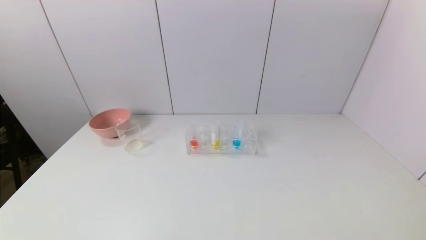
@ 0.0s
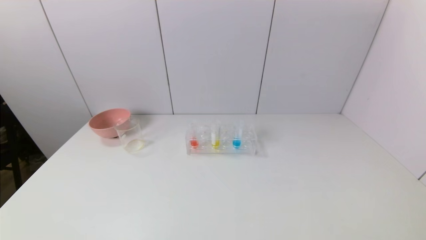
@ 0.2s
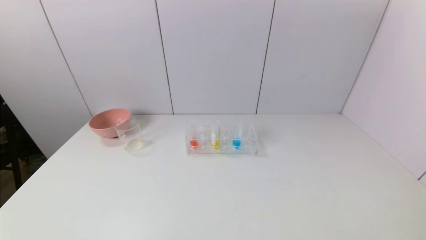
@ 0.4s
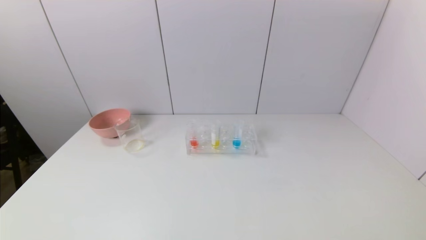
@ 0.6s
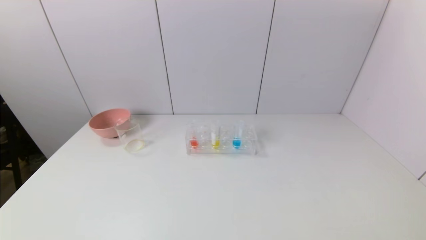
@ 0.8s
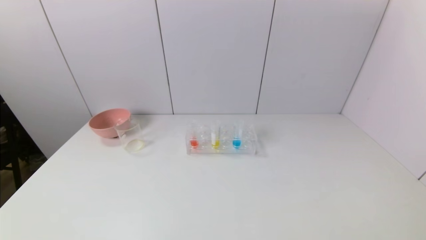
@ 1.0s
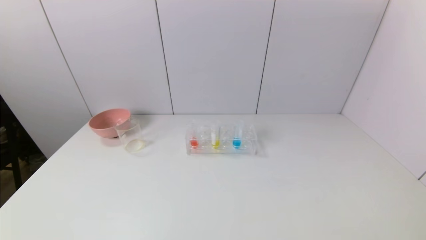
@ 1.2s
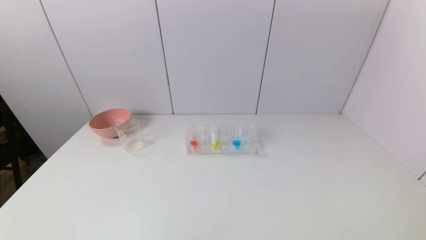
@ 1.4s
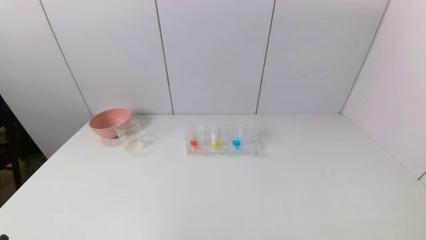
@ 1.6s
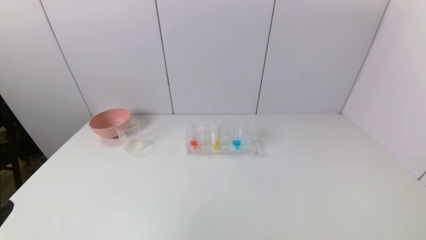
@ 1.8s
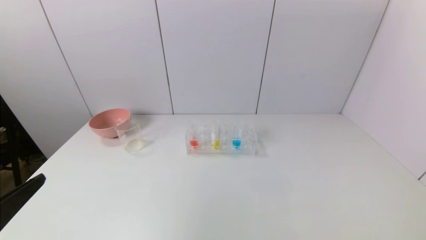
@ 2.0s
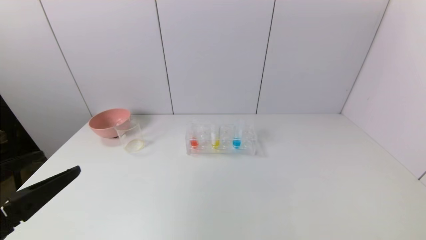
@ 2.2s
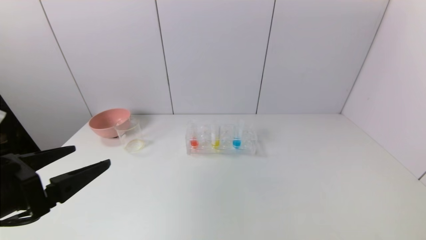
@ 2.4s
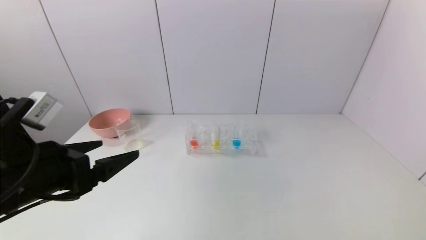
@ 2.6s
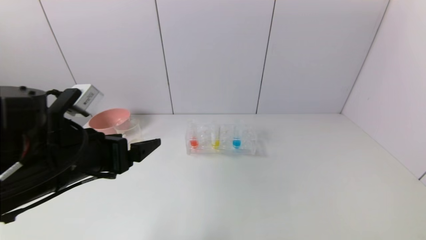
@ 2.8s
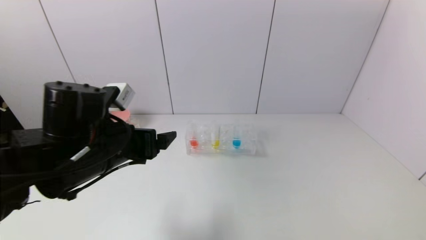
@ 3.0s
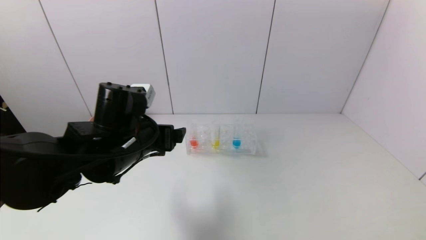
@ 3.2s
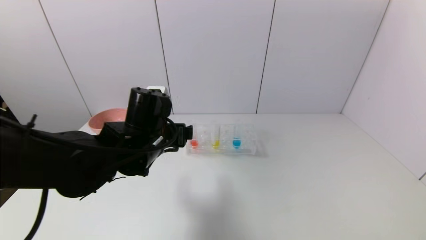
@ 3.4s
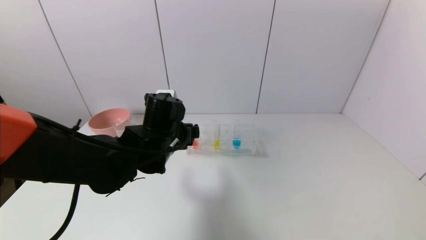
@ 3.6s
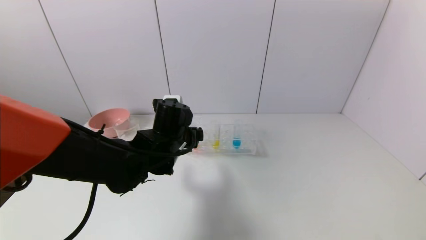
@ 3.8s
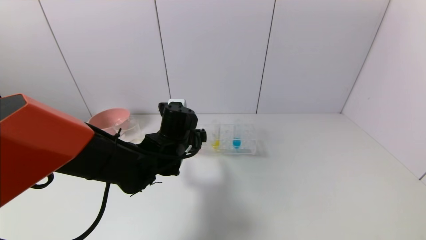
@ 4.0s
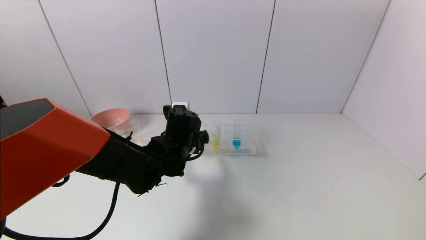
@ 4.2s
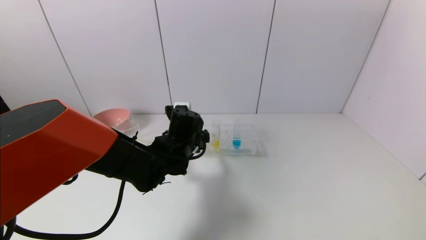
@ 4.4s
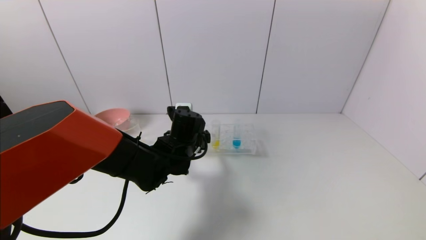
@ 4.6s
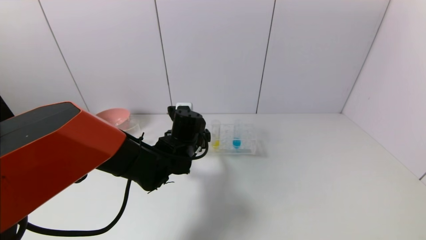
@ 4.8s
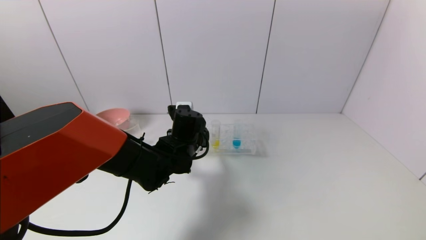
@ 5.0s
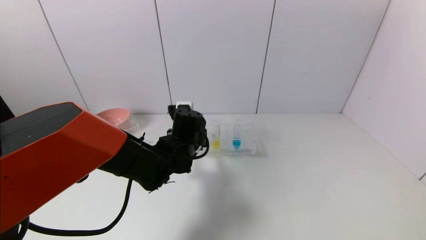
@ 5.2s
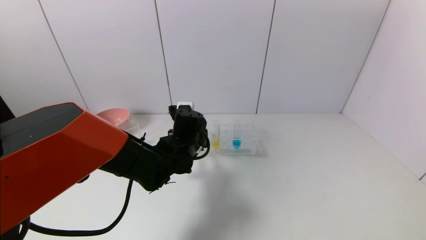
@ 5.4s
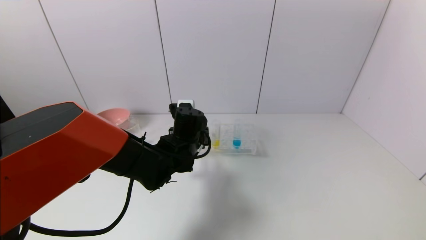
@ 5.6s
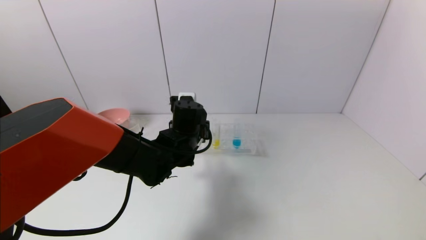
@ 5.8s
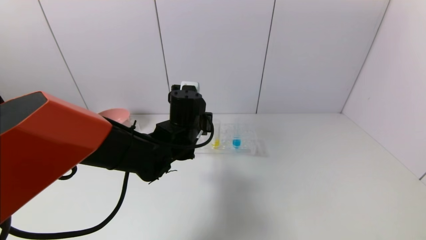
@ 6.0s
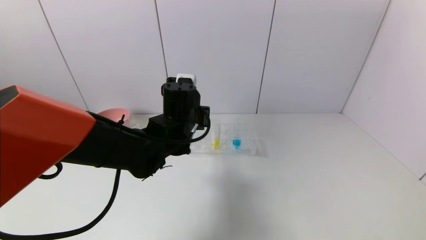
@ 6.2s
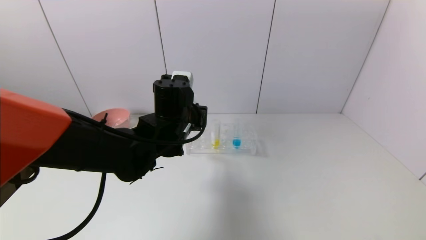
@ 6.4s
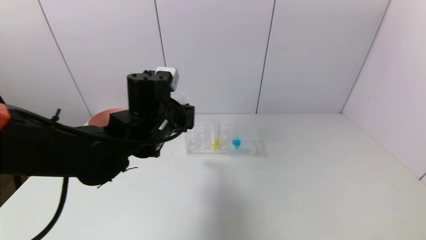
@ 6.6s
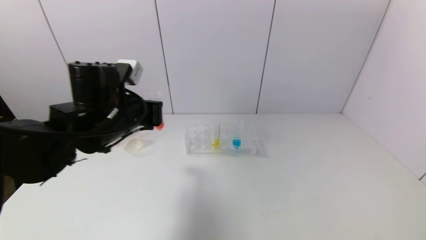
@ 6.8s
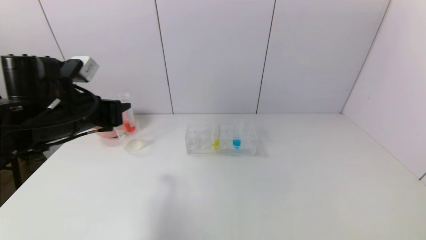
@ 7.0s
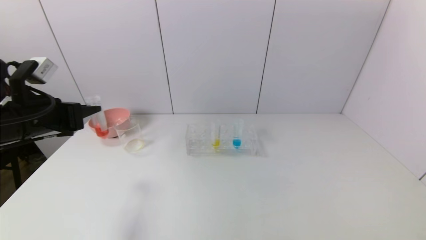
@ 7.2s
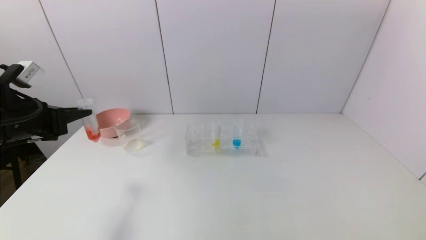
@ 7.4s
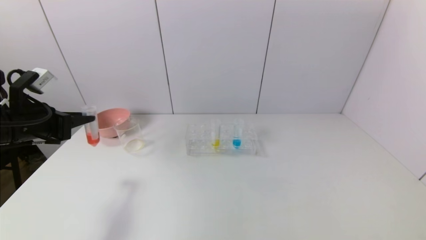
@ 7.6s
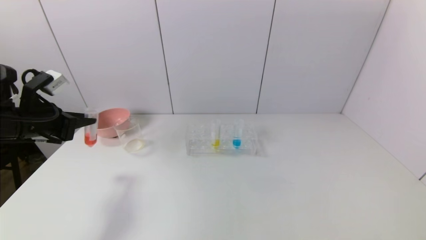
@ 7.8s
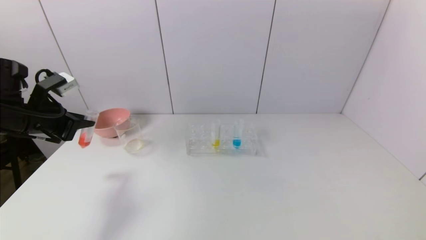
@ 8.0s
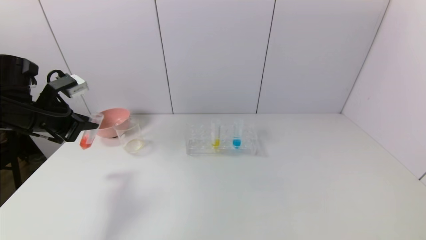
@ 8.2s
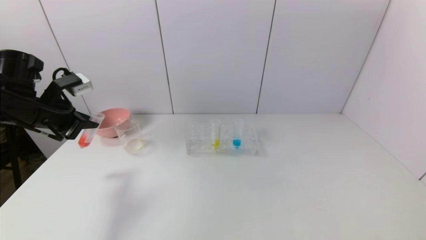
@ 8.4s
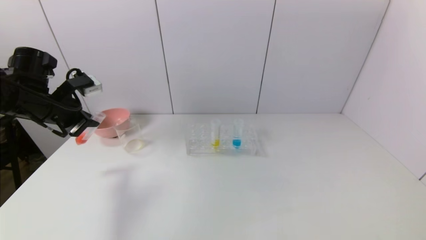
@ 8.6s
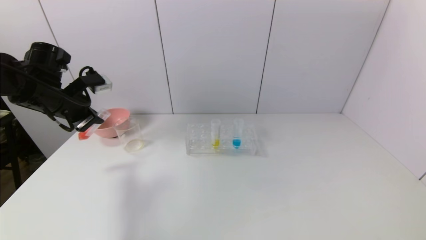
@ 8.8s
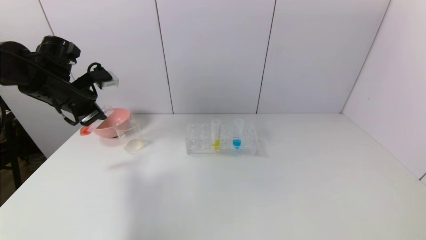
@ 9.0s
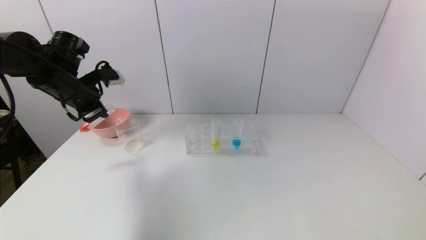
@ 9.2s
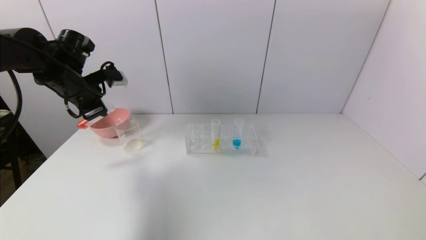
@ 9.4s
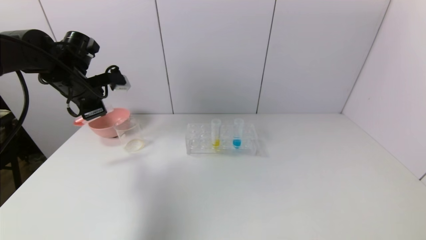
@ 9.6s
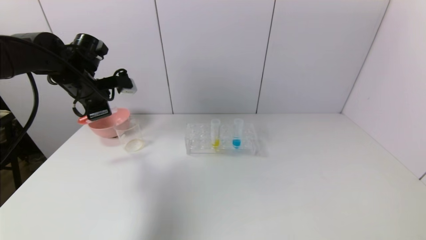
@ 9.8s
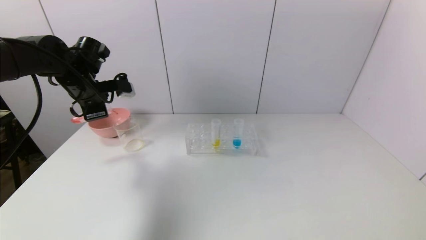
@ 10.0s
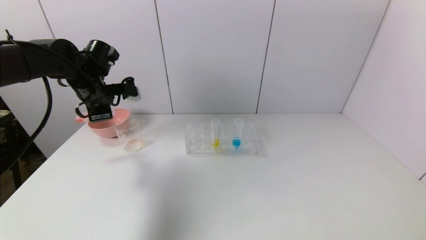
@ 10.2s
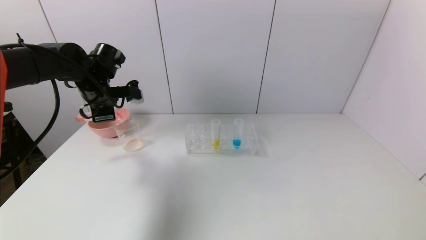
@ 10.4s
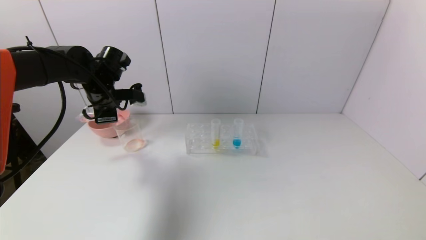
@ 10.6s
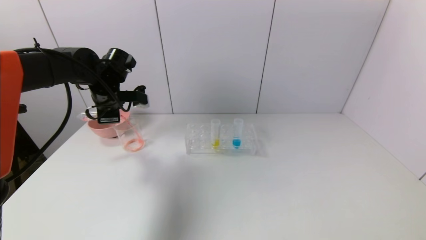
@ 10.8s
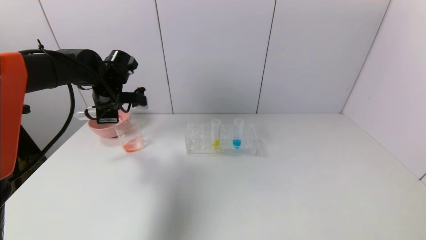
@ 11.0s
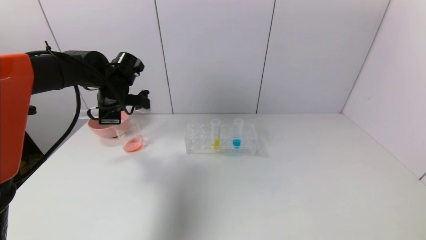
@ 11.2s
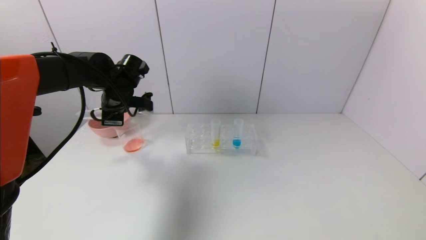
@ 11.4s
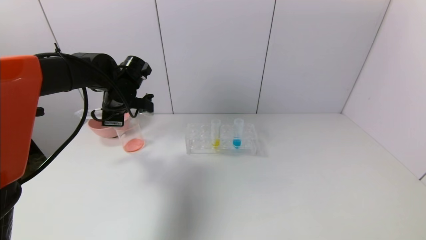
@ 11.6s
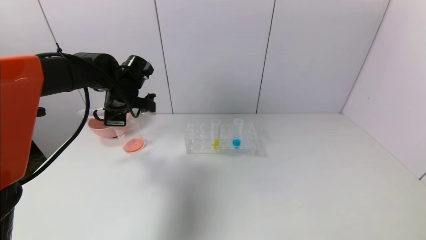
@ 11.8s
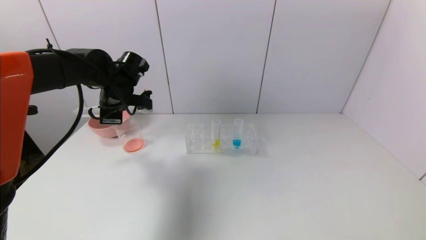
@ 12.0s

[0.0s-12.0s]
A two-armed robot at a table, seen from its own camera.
Task of the whole recording: pick up the test tube with yellow pigment and the test tube with red pigment by grippers and pour them into the beaker.
Step, 0.0s to 5.4s: Grasp the red reagent with the left gripper.
Step, 5.6s to 11.8s: Pour the red reagent into the graduated cylinder with the left gripper.
1.6s to 3.0s: The left gripper is displaced forward and to the right by roughly 25 cm.
3.0s to 4.4s: The left gripper moves forward, to the right and downward, some 15 cm.
4.4s to 6.0s: The left gripper closes its fingers.
6.0s to 7.6s: The left gripper heads to the left, covering about 30 cm.
7.6s to 9.0s: The left gripper moves forward, roughly 10 cm.
9.0s to 10.4s: The left gripper ends up about 5 cm from where it was.
10.4s to 12.0s: The grippers stay close to where they were, moving slightly.

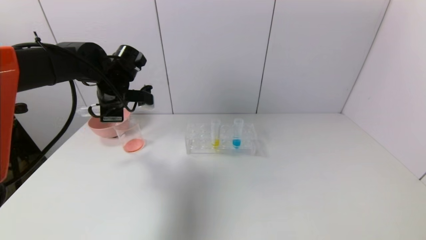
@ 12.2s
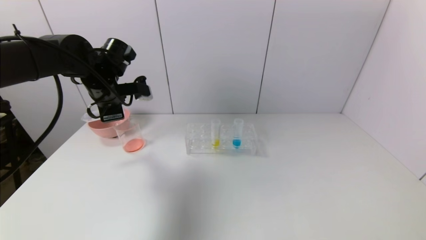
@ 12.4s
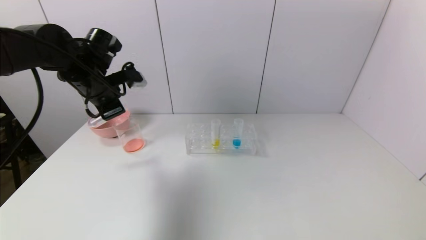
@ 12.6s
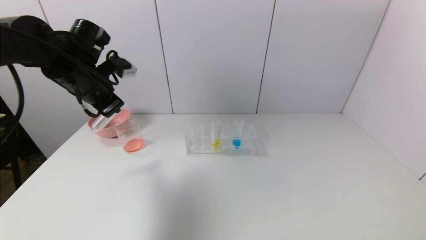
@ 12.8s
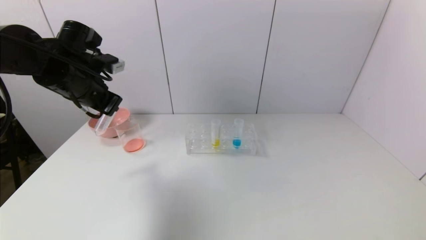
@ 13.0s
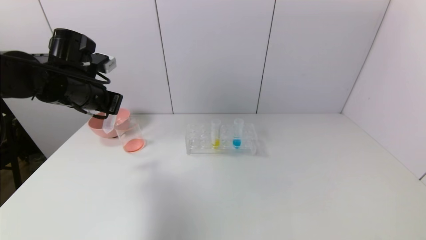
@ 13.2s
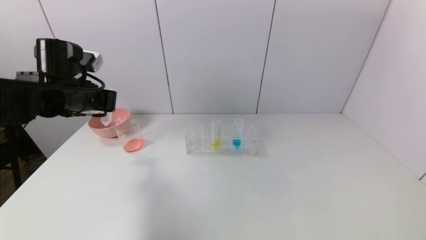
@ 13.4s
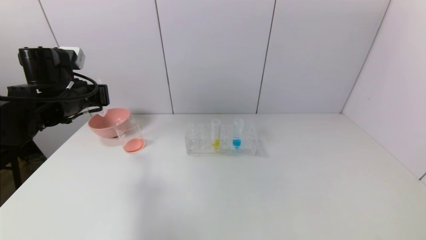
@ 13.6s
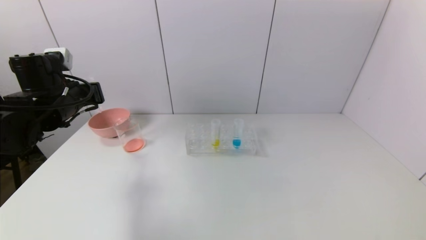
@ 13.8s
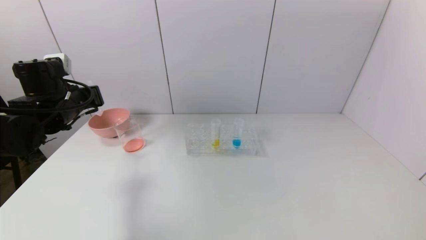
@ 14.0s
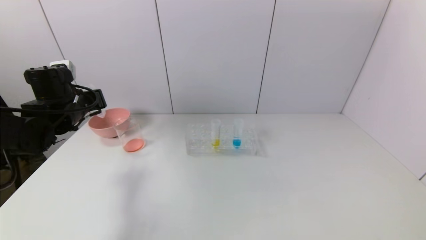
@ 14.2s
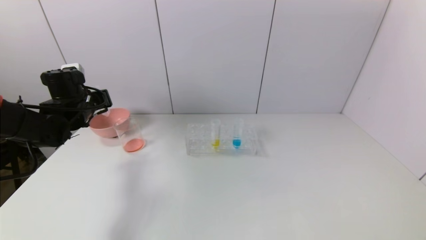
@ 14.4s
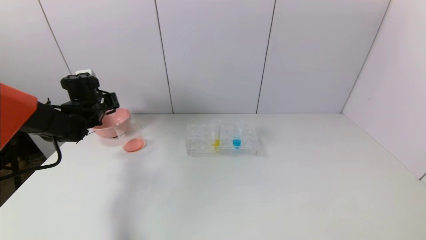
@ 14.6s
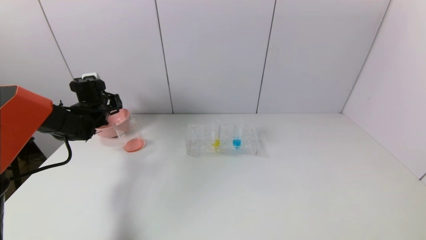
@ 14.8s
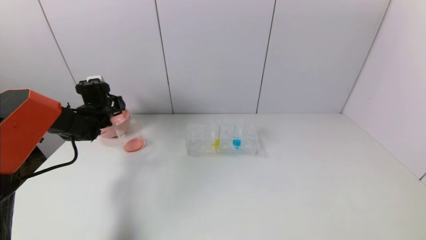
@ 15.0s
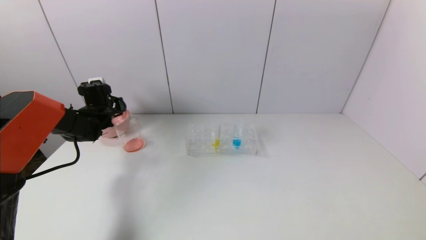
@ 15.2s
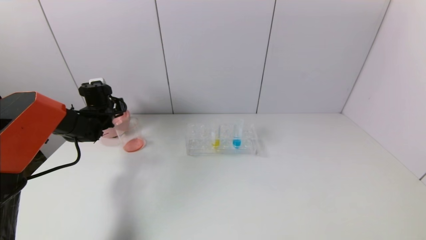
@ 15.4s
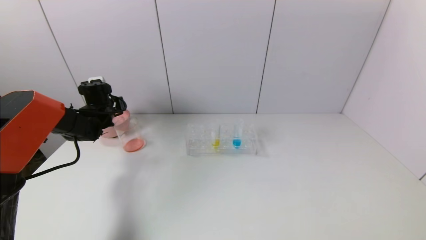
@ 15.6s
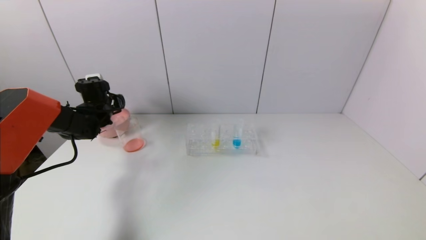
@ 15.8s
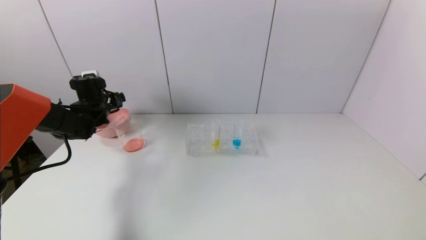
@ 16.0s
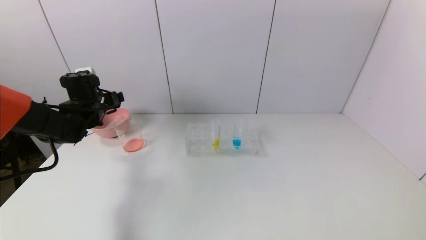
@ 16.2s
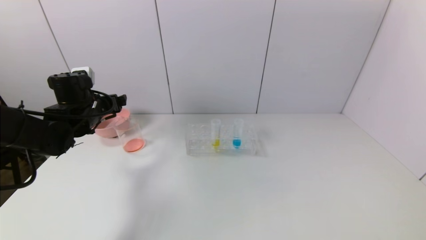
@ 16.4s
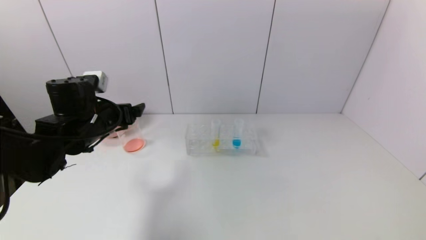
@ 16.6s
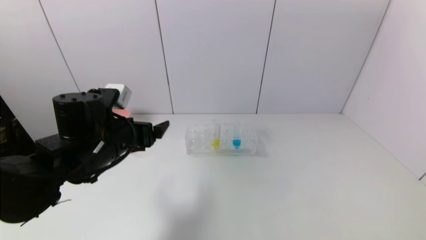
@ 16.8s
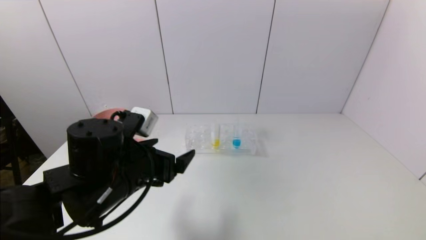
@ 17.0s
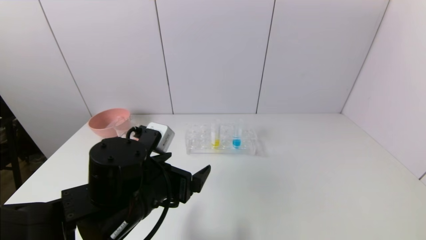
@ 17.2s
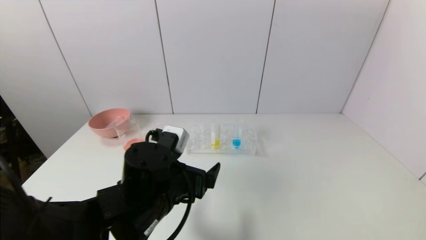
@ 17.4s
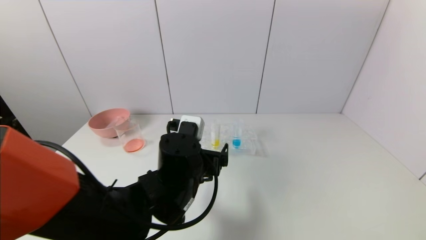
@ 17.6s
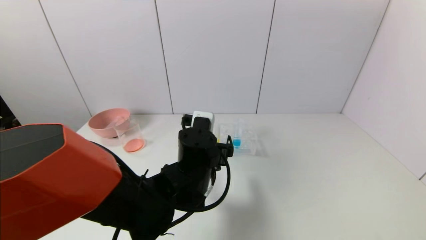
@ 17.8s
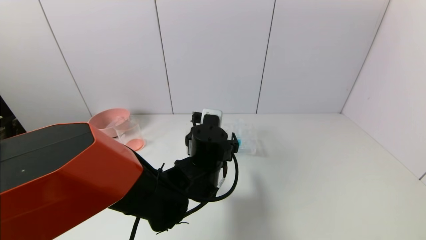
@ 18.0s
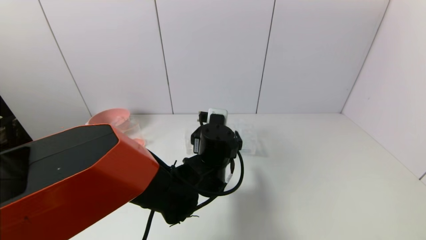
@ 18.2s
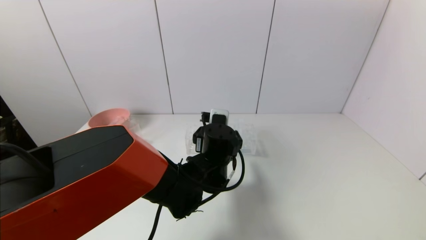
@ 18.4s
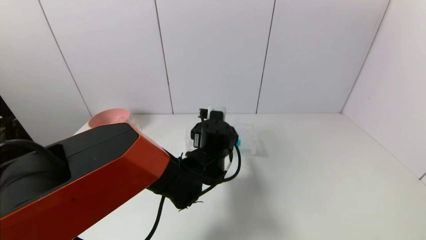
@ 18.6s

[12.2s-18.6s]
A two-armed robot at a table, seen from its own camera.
Task of the whole recording: pick up the test tube with yellow pigment and the test tube with red pigment by grippers and pour them into the beaker.
Step, 12.2s to 15.6s: Place the test tube into the pink bowl with the left gripper.
12.2s to 13.8s: The left gripper goes some 10 cm to the left and backward.
13.8s to 15.4s: The left gripper travels forward and downward by some 20 cm.
15.4s to 17.0s: The left gripper shifts approximately 35 cm backward and to the right, and opens.
17.0s to 18.6s: The left gripper goes approximately 20 cm to the right and forward.
